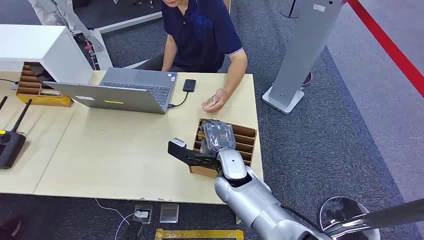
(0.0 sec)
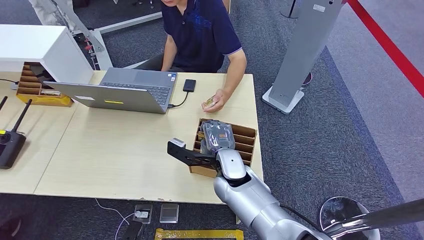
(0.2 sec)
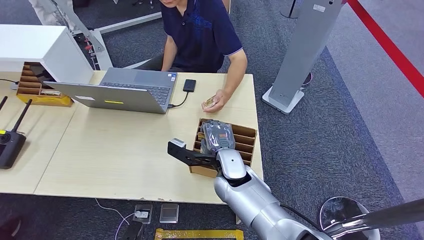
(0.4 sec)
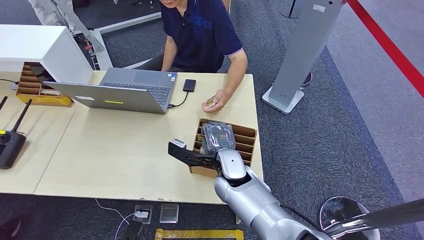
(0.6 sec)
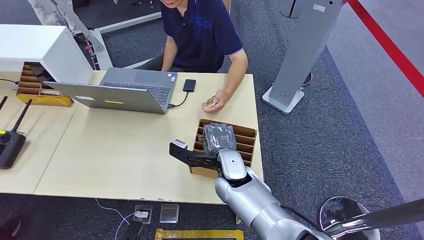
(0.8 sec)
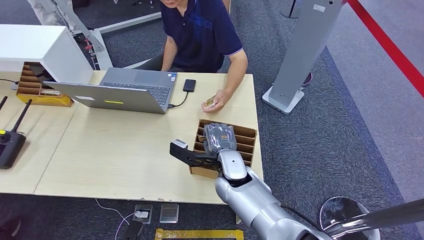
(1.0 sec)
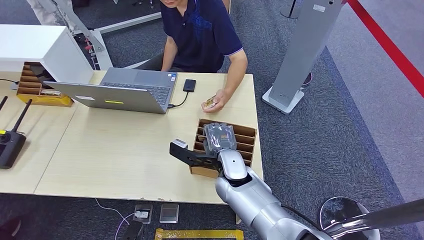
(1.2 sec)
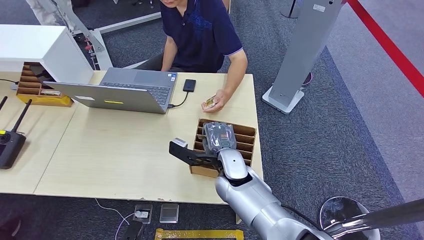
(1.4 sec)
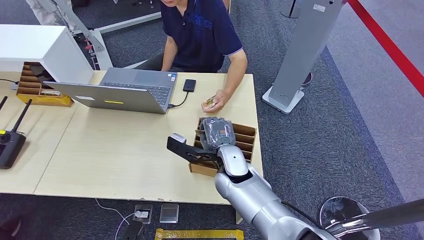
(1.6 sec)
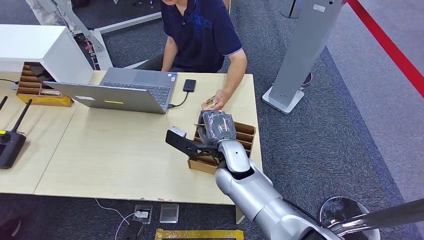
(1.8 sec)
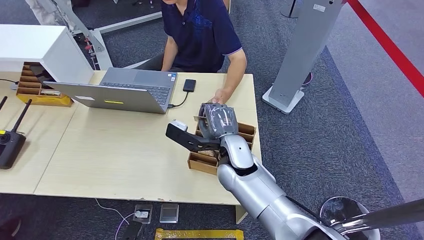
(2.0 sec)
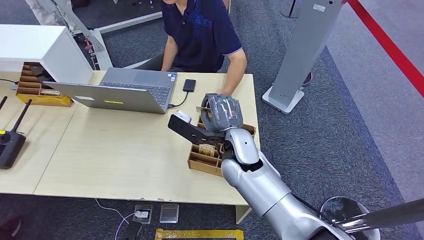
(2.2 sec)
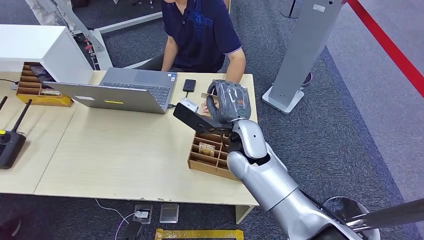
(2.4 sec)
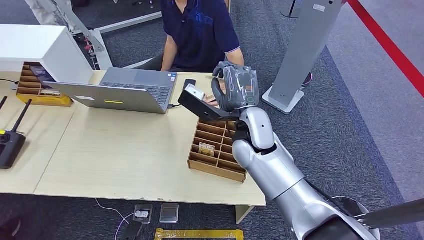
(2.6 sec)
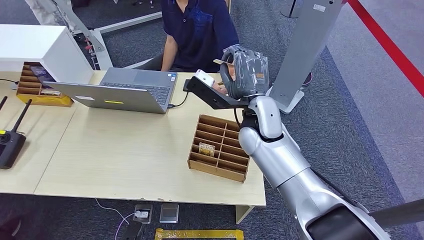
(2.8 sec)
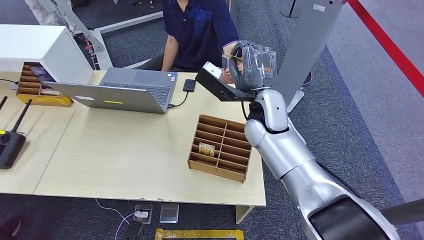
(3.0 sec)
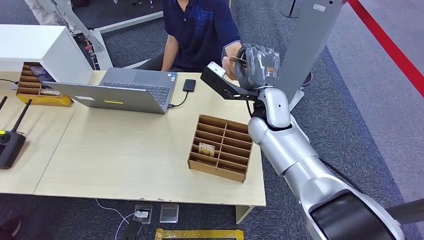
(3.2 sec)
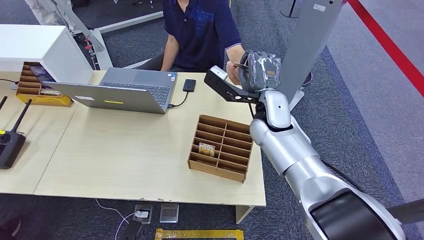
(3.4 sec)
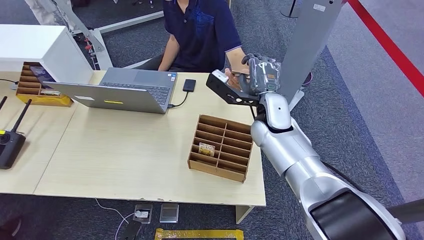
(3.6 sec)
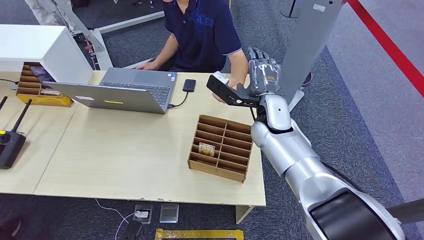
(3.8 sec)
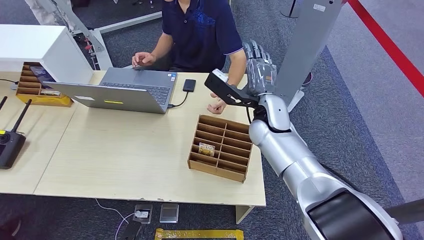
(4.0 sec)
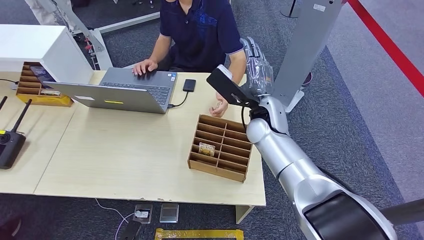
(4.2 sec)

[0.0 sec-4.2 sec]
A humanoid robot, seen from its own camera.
Step, 0.0 sec to 2.2 sec: Pick up the room card from the card holder.
Step, 3.4 sec to 4.2 sec: Hand the room card to the target.
1.4 sec to 2.8 sec: The right hand is displaced upward, forward and to the right by roughly 15 cm.
2.8 sec to 4.2 sec: The right hand goes approximately 5 cm downward.

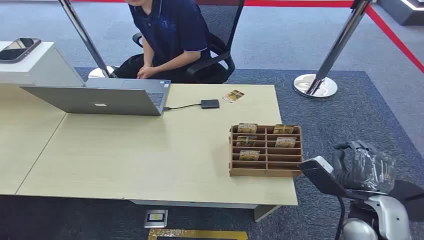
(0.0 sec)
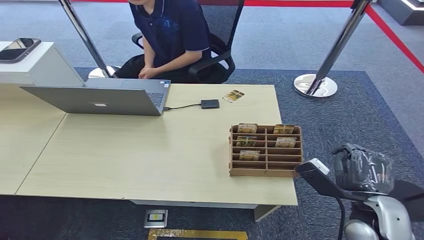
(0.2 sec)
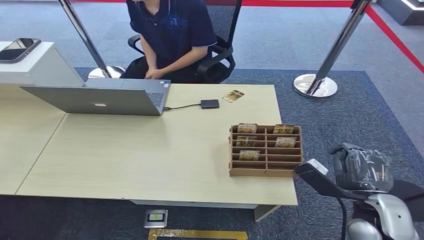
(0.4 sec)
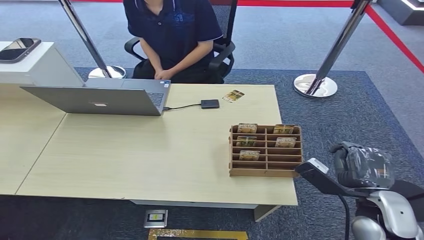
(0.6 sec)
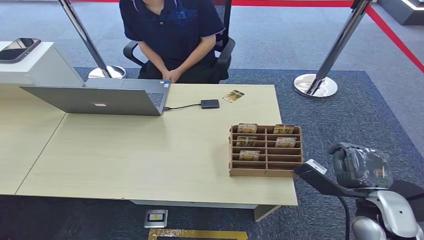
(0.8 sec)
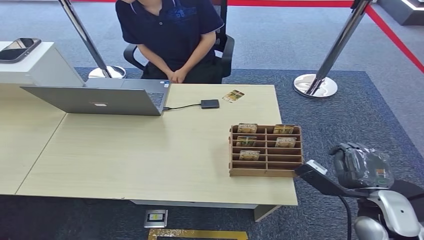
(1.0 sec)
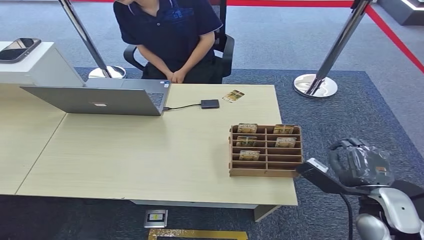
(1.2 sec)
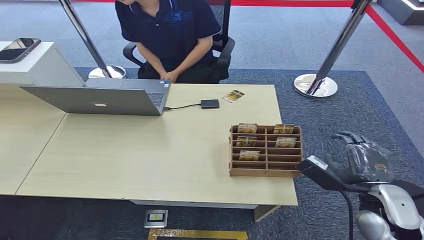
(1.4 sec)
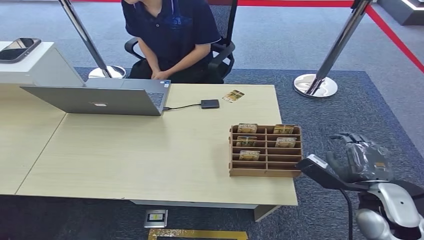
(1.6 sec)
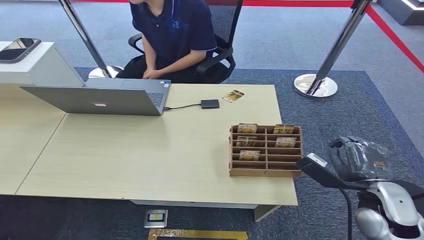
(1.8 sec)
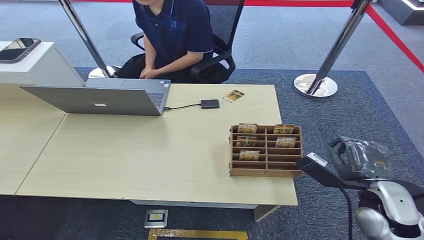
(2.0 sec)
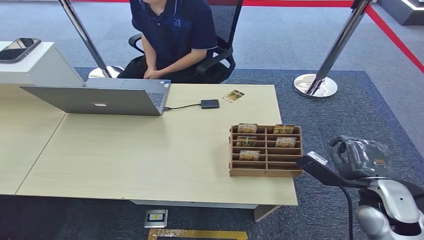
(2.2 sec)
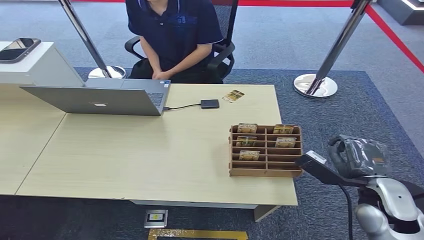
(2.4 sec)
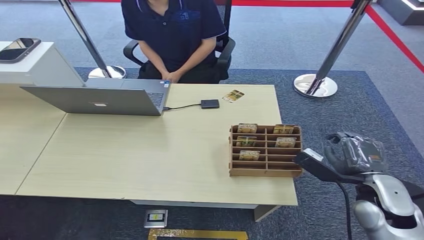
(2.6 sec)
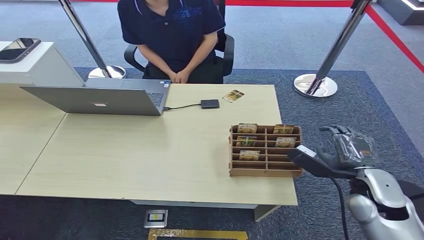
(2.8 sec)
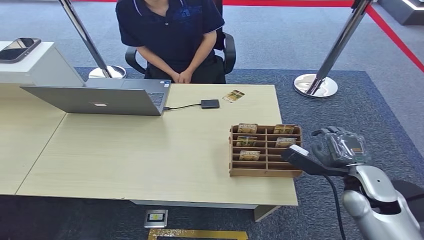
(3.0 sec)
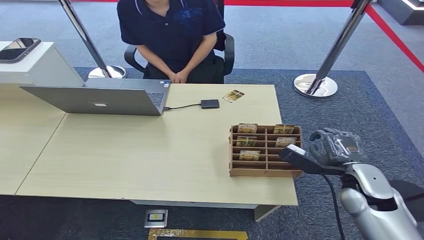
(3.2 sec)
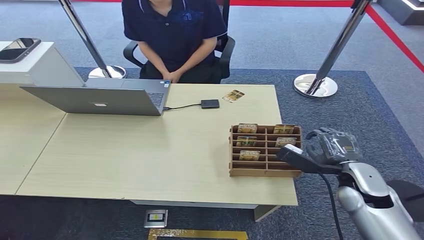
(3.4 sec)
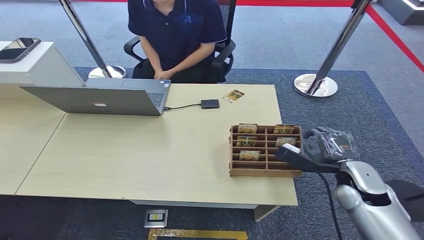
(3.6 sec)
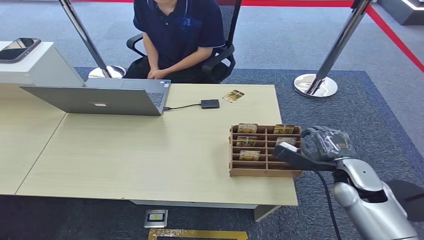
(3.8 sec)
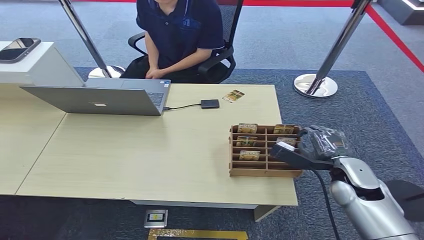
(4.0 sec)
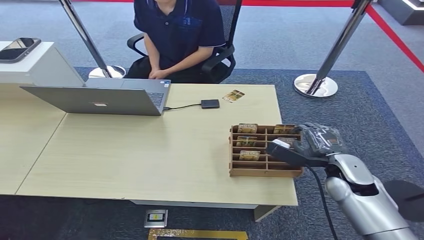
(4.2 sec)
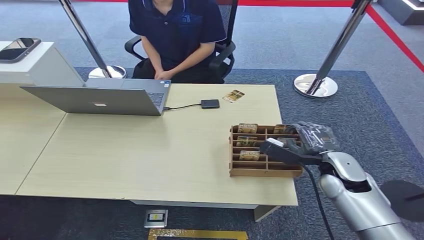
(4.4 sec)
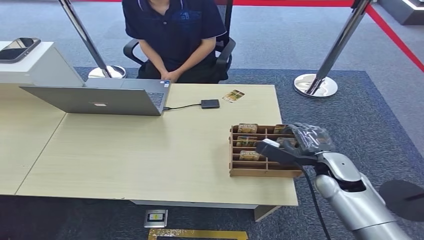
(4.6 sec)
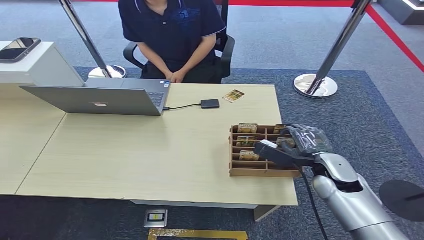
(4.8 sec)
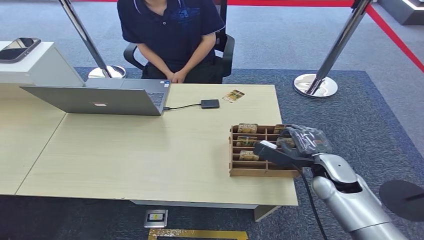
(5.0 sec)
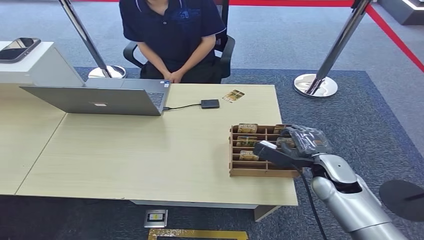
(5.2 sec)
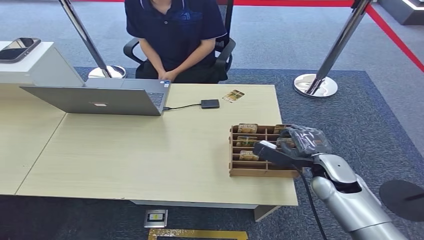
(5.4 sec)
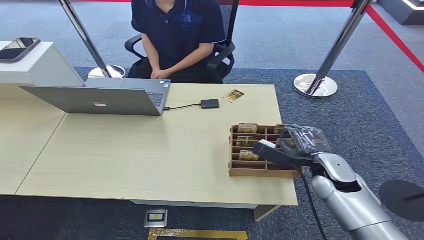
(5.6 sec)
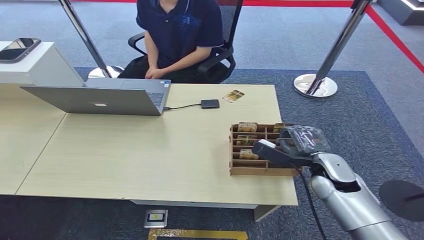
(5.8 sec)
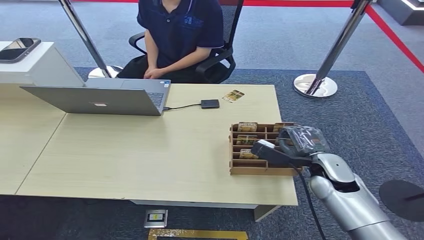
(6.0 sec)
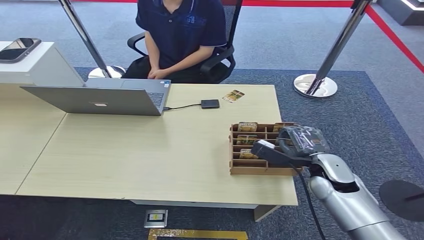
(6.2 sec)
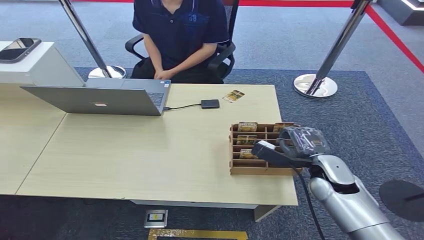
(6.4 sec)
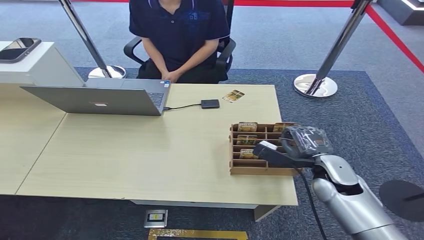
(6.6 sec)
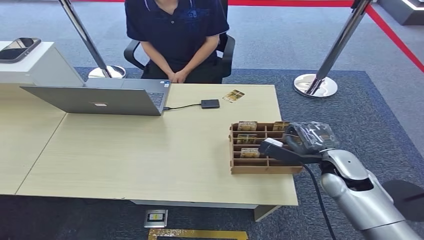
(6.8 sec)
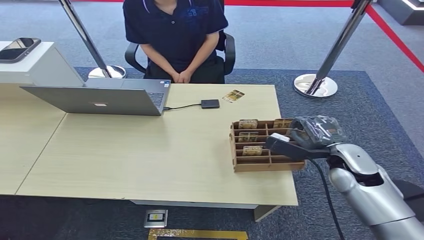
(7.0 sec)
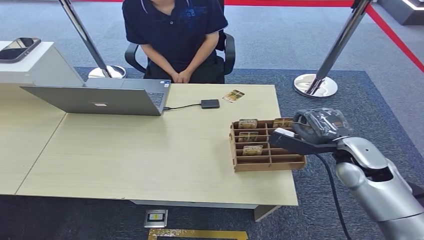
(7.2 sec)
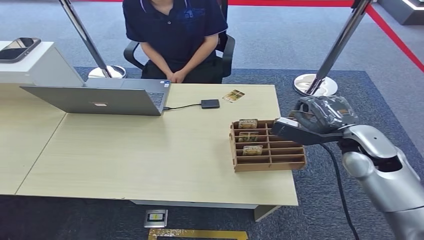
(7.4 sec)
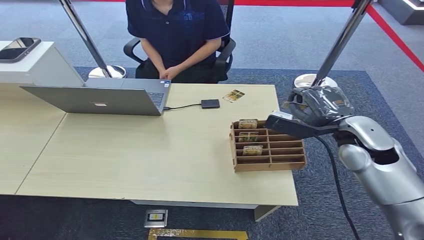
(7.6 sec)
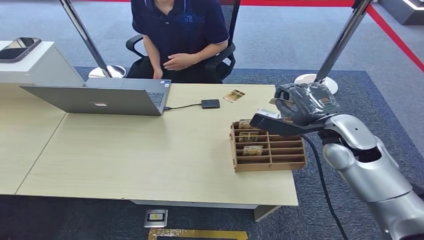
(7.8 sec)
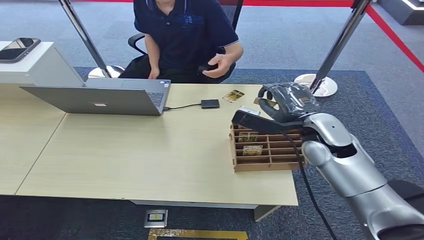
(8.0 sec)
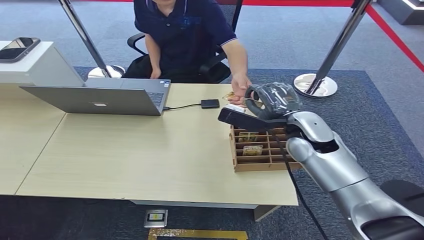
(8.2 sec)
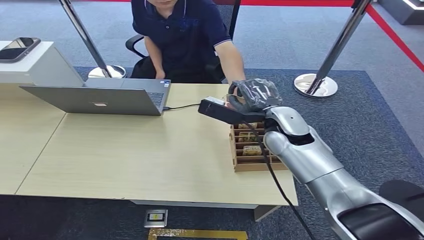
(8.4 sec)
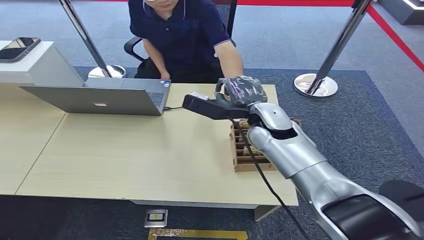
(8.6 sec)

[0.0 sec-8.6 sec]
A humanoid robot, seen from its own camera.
Step, 0.0 sec to 7.6 sec: Pick up the room card from the card holder.
Step, 7.8 sec to 8.4 sec: Hand the room card to the target.
1.4 sec to 2.8 sec: The hands move only a little.
2.8 sec to 4.4 sec: The right hand ends up roughly 5 cm from where it was.
4.4 sec to 5.8 sec: The hands stay close to where they were, moving slightly.
5.8 sec to 7.2 sec: The right hand moves upward, approximately 10 cm.
7.2 sec to 8.6 sec: The right hand is displaced to the left by roughly 20 cm.
